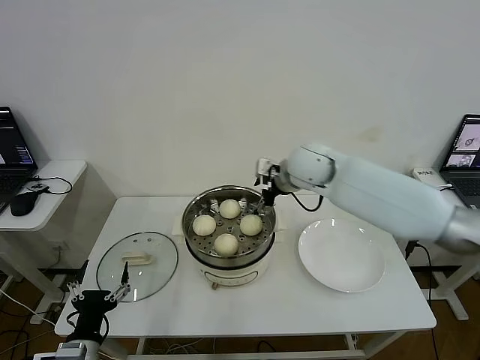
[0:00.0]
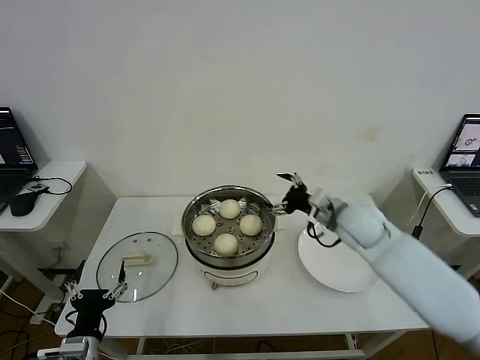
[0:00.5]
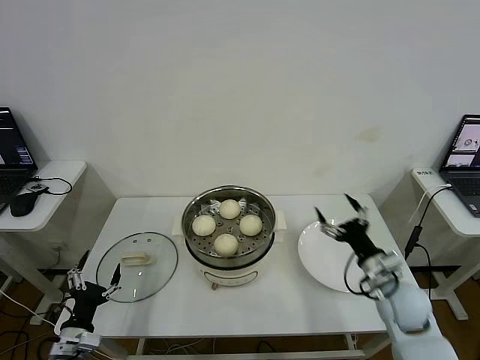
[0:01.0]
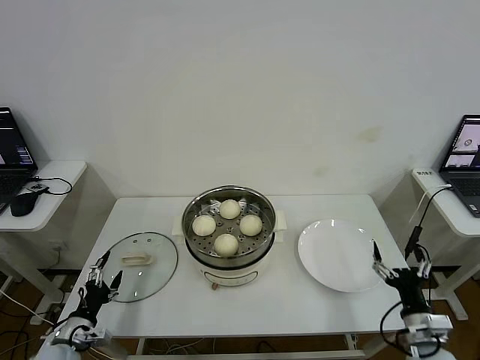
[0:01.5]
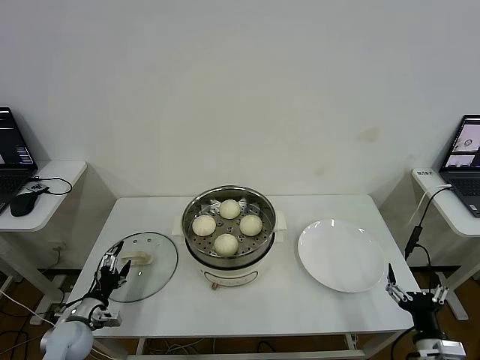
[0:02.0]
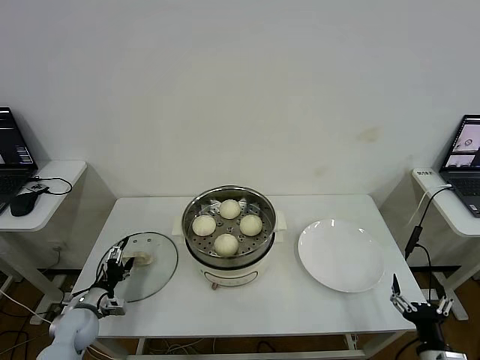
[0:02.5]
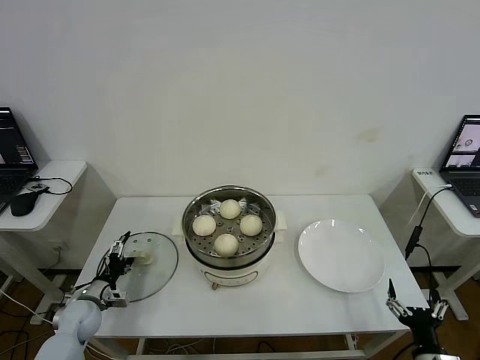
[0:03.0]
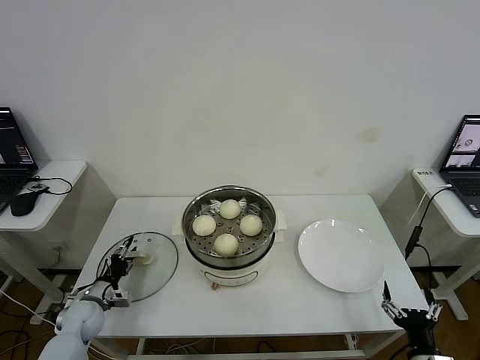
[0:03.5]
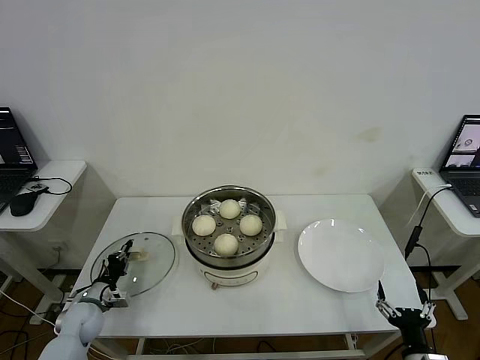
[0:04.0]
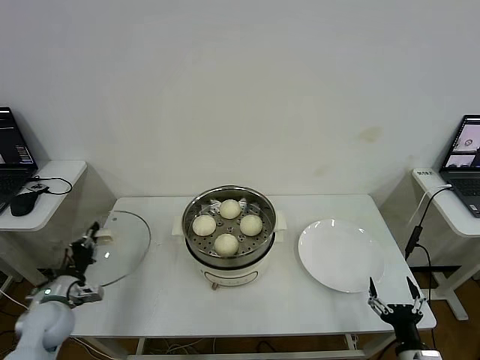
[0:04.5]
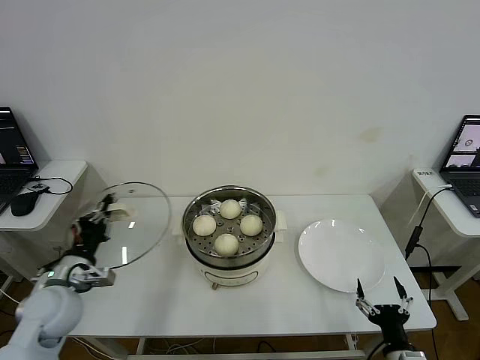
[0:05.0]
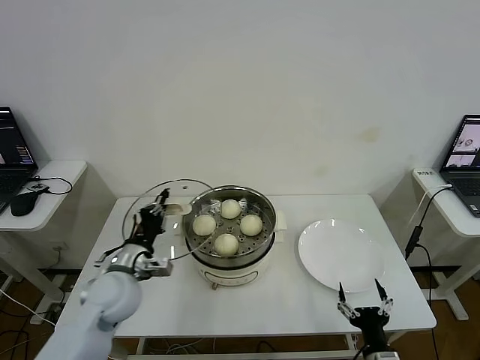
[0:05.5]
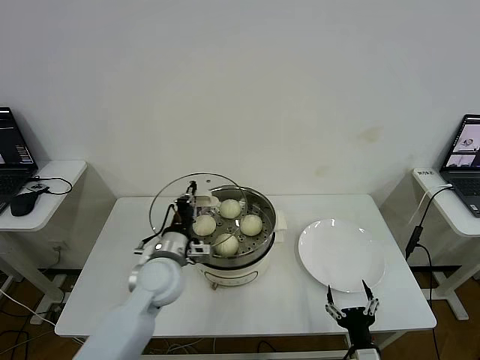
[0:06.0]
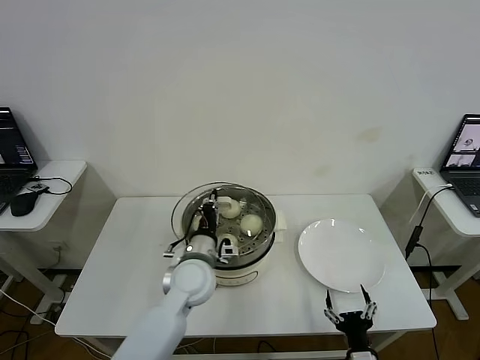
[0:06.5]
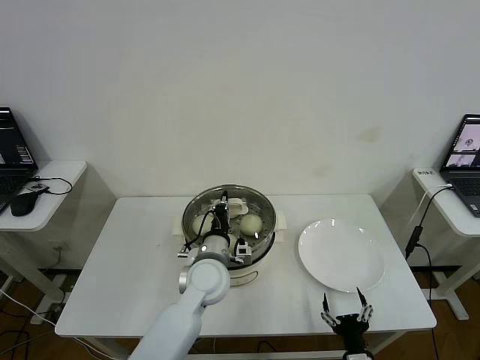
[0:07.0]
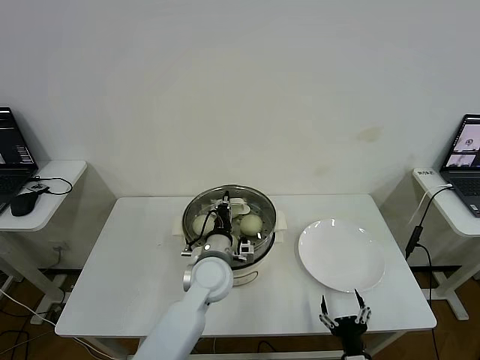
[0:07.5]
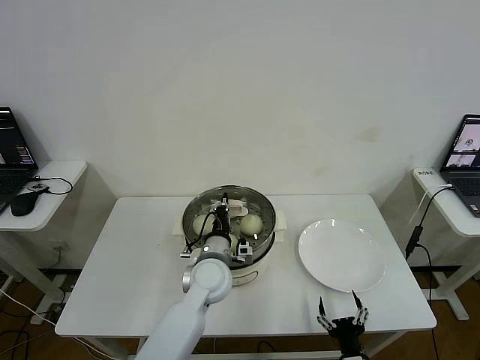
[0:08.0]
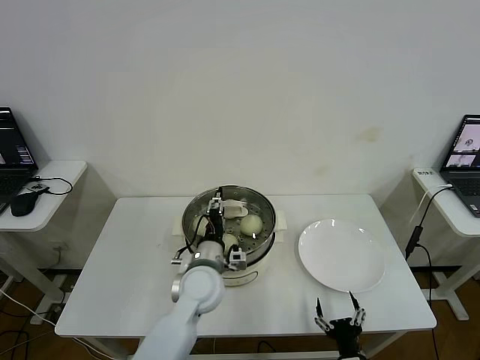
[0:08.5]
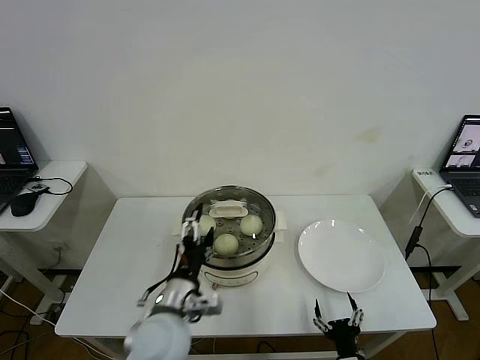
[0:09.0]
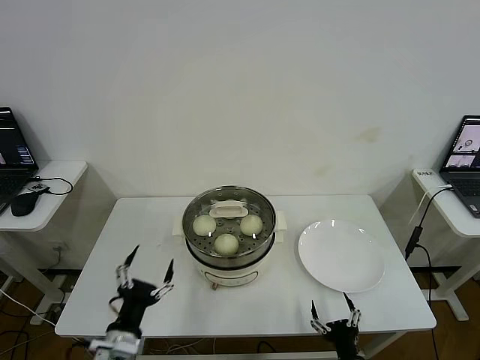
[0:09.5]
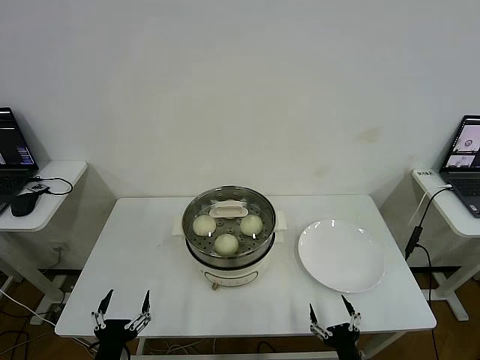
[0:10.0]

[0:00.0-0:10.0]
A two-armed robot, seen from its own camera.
Step, 0:00.0 to 0:04.0: Grasp the pot lid with left gripper.
Step, 0:04.5 to 0:08.0: Place the pot lid on the steamer with left gripper.
0:00.0 to 0:02.0: The right gripper travels backward, downward and to the right by approximately 50 cm, while the left gripper is displaced forward, to the left and downward by some 20 cm.
0:02.0 to 0:04.0: The left gripper shifts roughly 5 cm forward, and closes.
0:04.0 to 0:06.0: The left gripper is displaced to the right and upward by some 30 cm. Meanwhile the right gripper is displaced to the left by approximately 10 cm.
0:06.0 to 0:08.0: The left gripper is displaced to the right by some 10 cm.
0:08.0 to 0:10.0: The left gripper travels backward and to the left by roughly 35 cm, and opens up.
